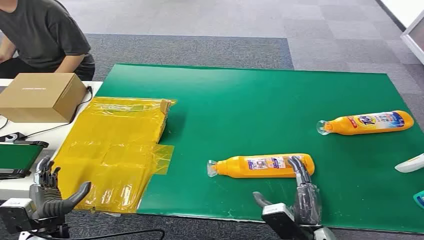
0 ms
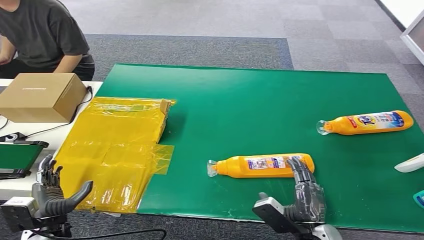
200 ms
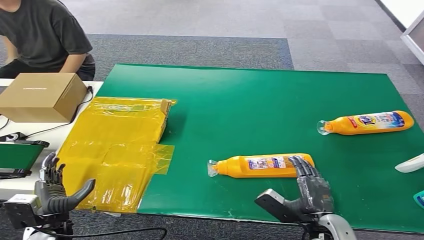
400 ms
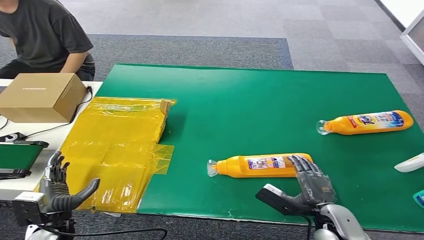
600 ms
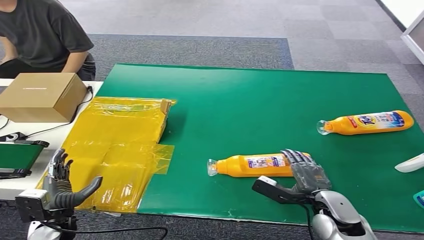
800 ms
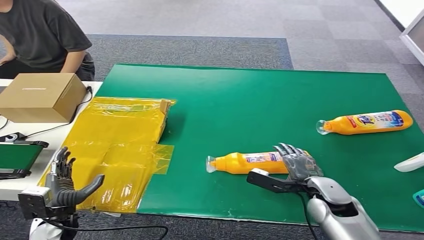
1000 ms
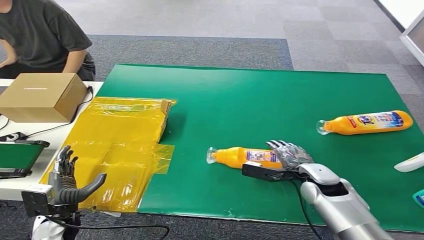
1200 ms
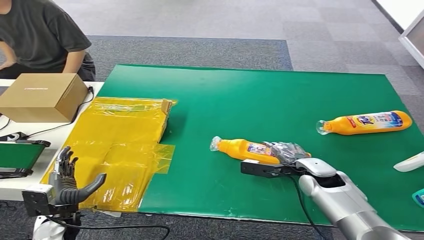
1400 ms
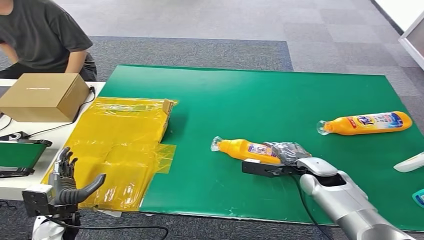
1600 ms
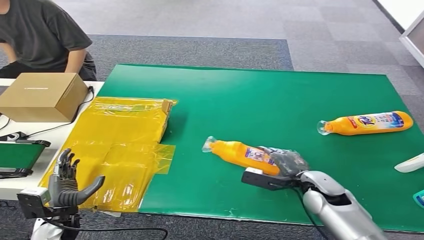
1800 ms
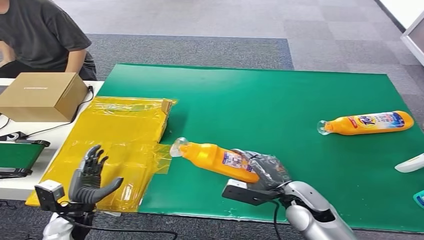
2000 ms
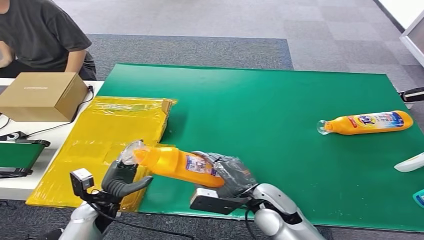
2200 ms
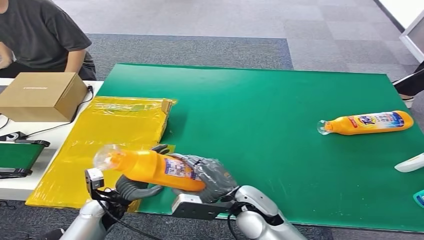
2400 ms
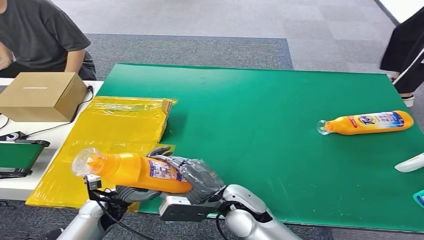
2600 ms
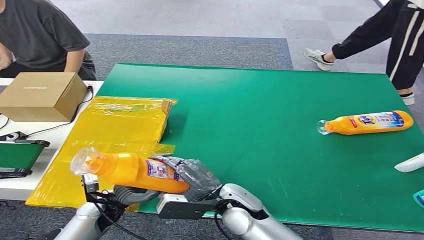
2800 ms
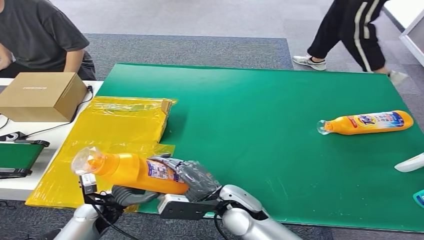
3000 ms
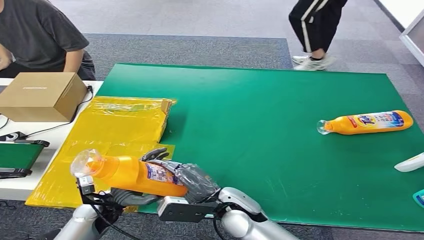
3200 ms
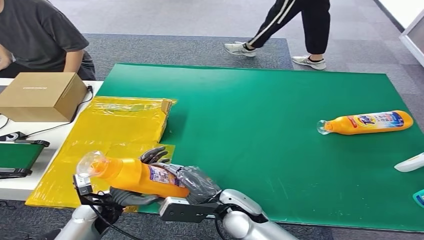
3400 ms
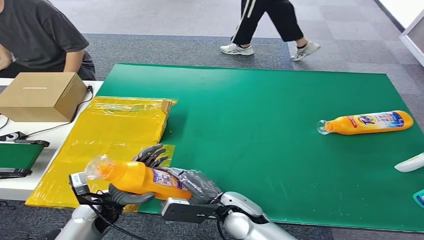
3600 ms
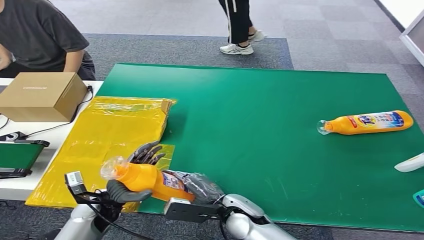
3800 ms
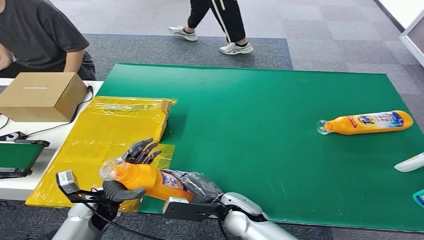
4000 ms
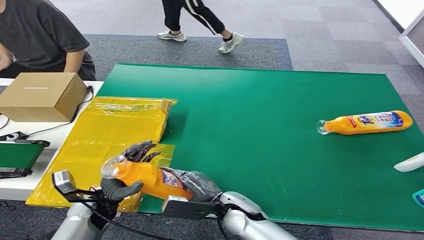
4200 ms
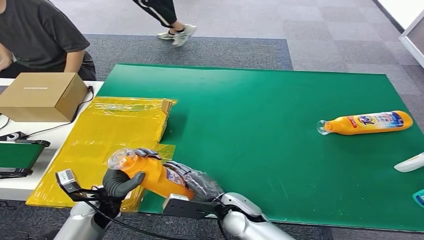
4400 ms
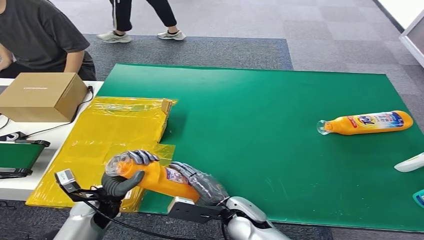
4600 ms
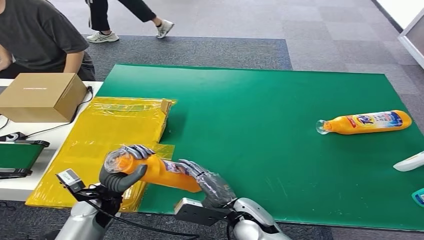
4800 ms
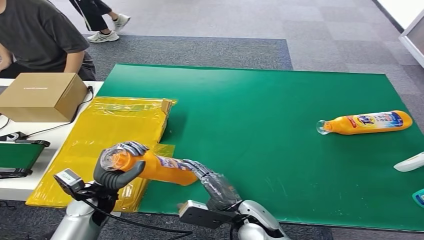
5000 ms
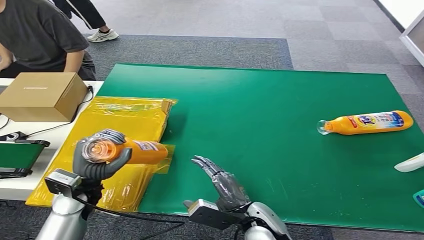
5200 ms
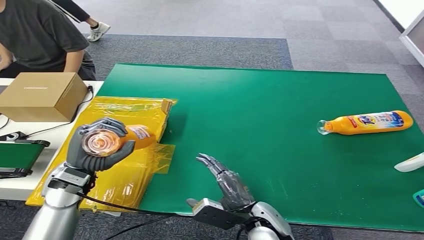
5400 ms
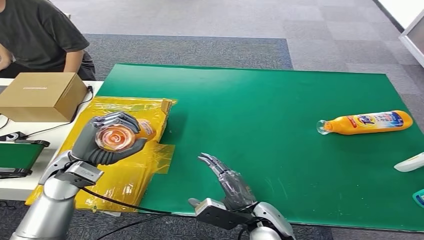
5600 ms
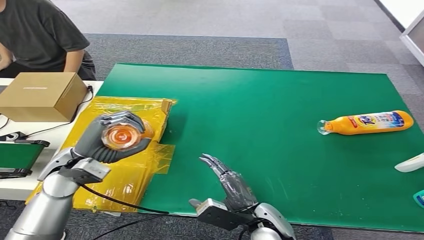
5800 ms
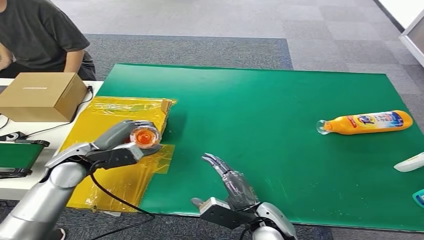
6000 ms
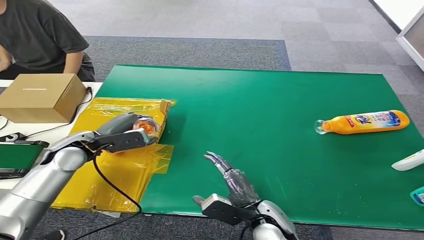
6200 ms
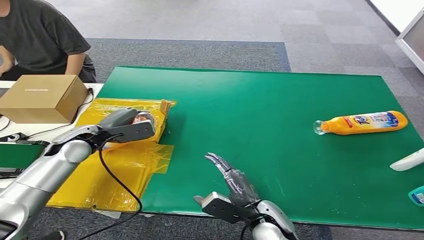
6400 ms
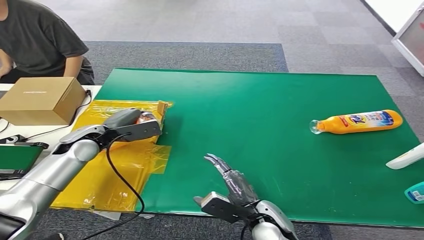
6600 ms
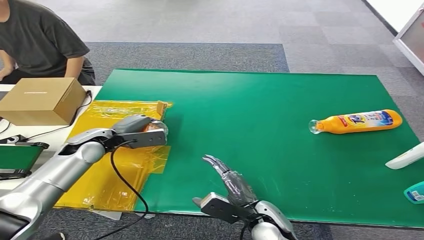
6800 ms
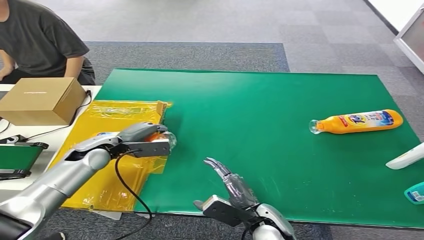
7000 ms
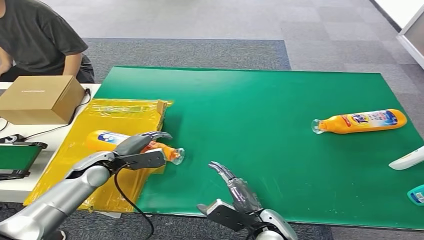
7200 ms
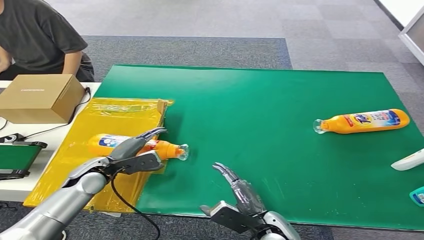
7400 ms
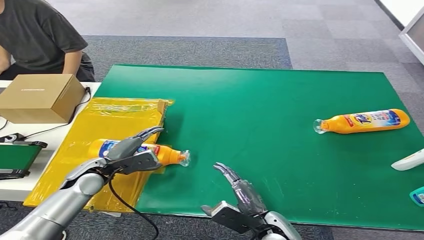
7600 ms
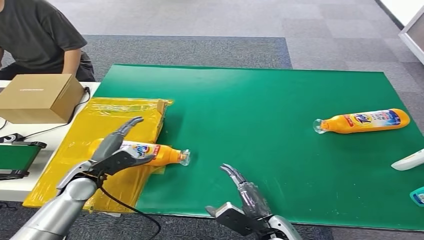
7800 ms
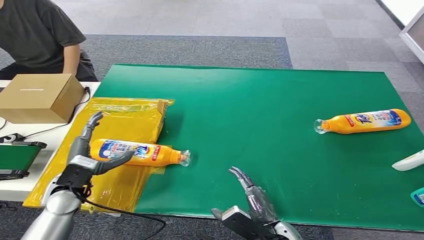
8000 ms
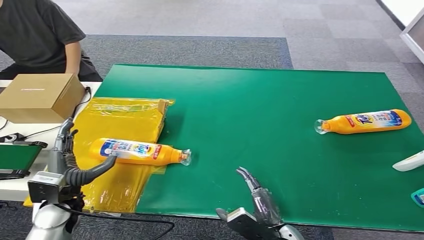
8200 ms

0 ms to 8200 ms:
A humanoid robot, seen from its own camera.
Step, 0 ms to 1800 ms: Pick up the bottle from the table.
Step, 2000 ms to 8200 ms: Turn the bottle to the front side.
3200 ms to 5000 ms: The right hand shifts by some 5 cm. The left hand shifts roughly 5 cm upward.

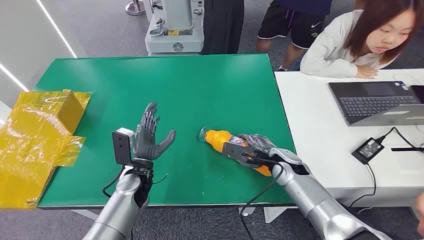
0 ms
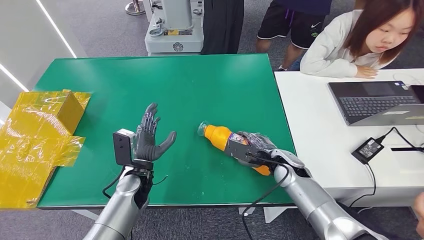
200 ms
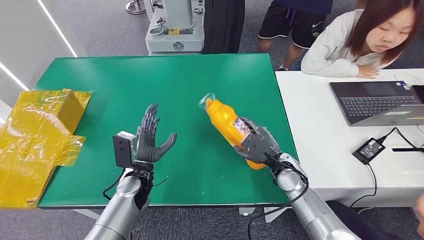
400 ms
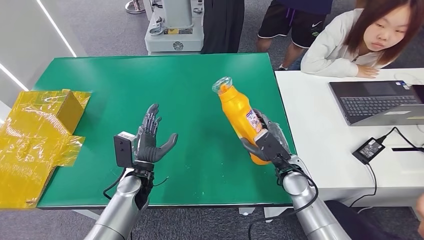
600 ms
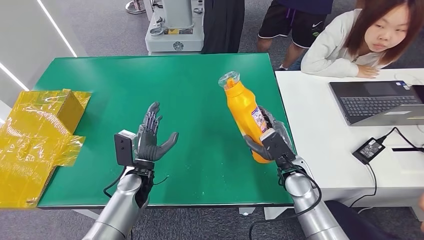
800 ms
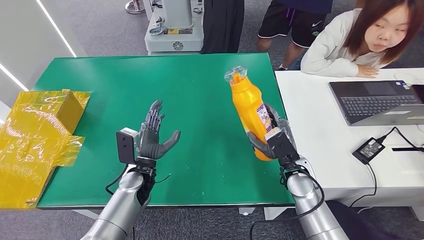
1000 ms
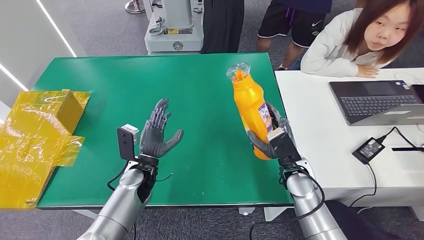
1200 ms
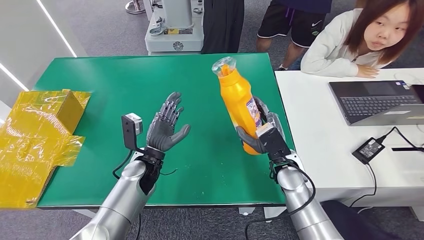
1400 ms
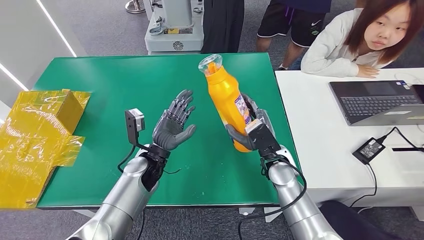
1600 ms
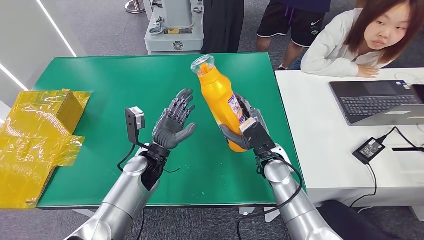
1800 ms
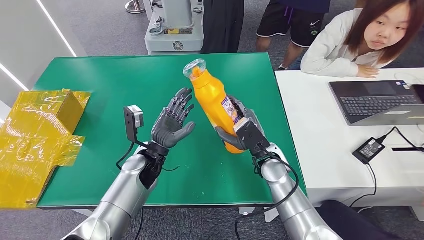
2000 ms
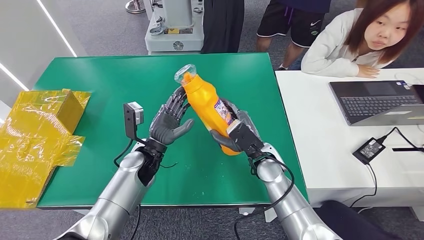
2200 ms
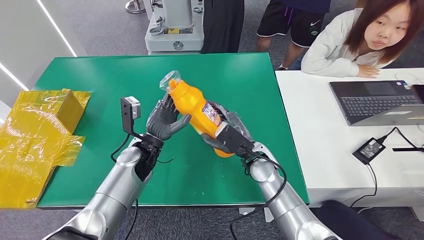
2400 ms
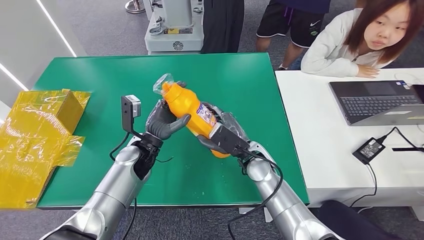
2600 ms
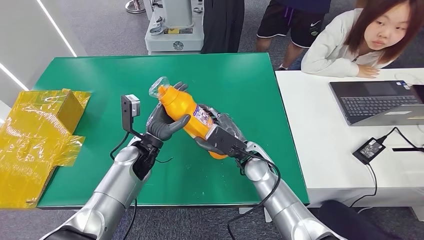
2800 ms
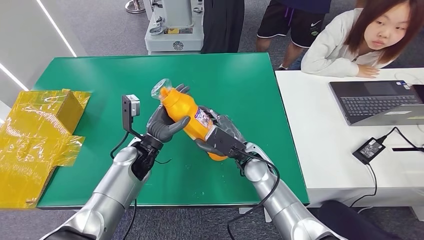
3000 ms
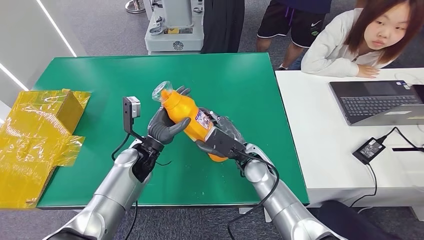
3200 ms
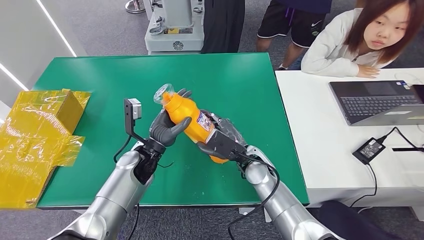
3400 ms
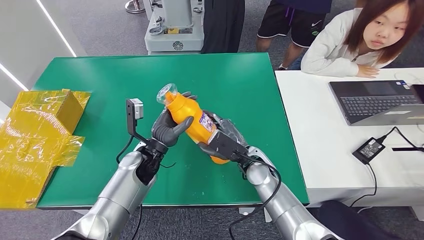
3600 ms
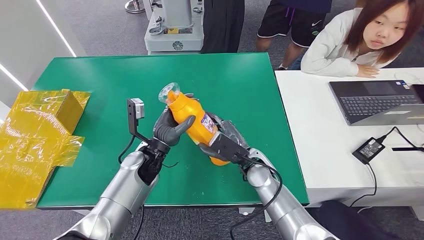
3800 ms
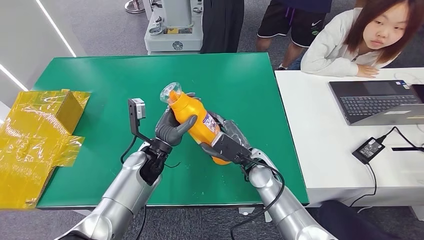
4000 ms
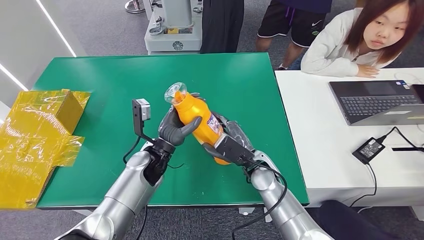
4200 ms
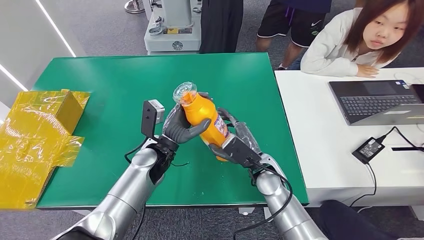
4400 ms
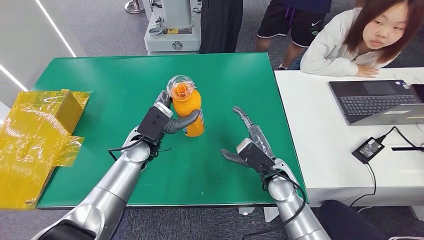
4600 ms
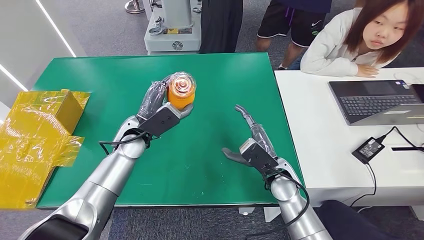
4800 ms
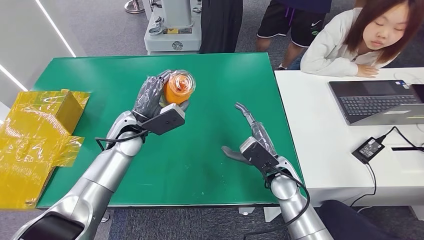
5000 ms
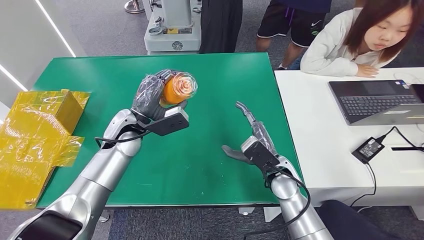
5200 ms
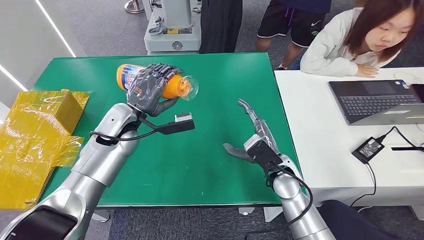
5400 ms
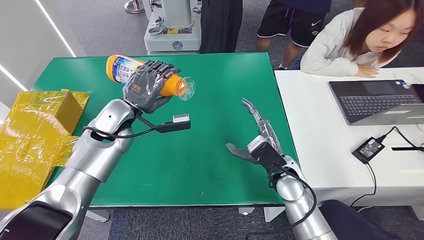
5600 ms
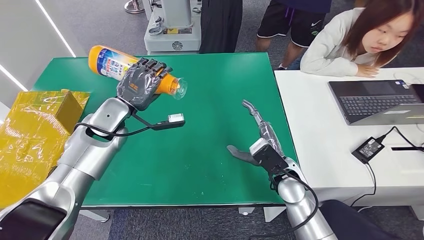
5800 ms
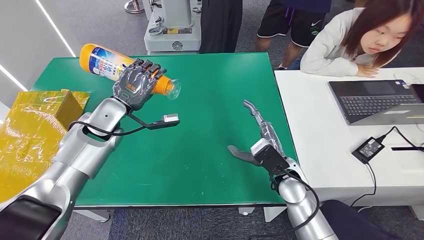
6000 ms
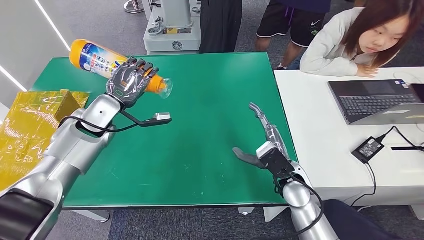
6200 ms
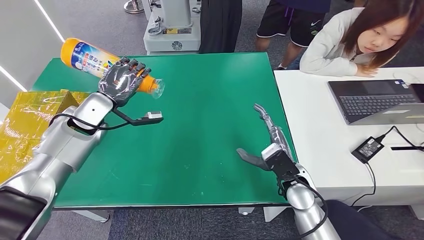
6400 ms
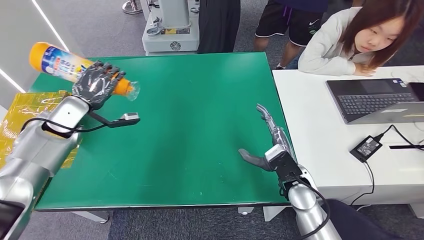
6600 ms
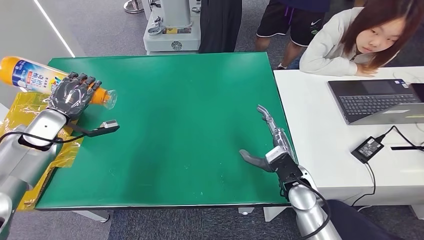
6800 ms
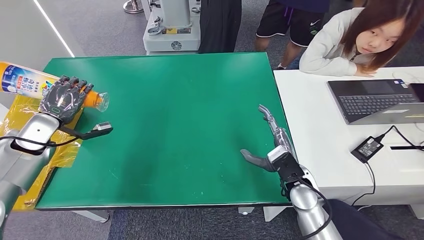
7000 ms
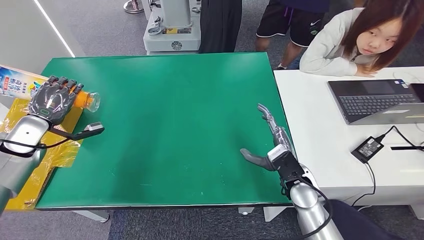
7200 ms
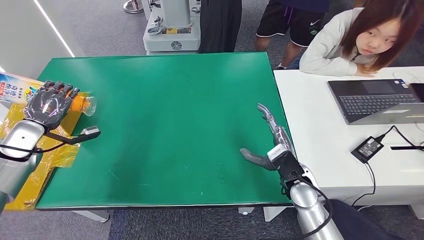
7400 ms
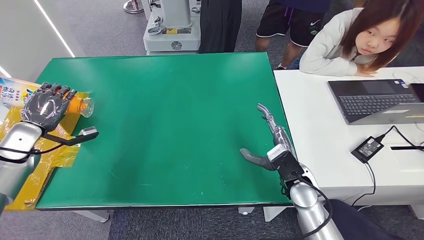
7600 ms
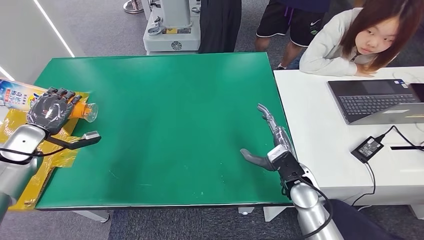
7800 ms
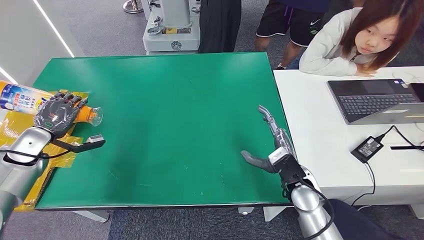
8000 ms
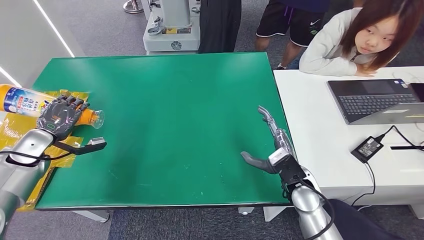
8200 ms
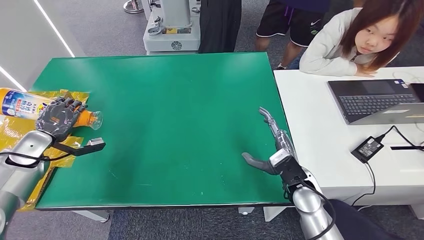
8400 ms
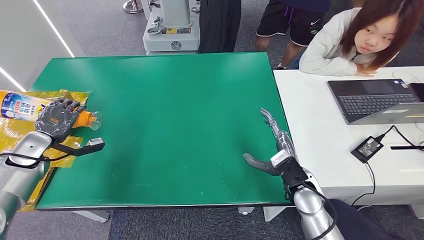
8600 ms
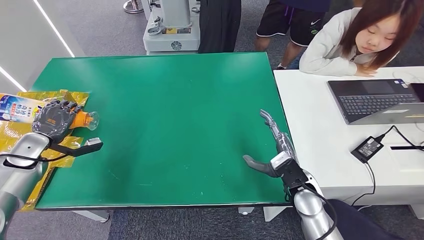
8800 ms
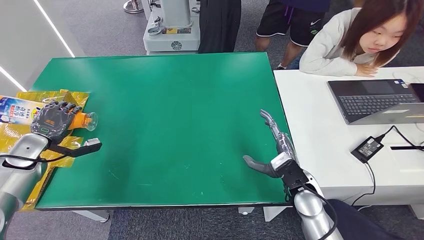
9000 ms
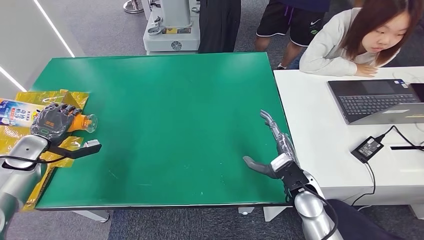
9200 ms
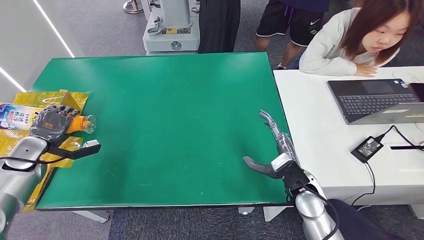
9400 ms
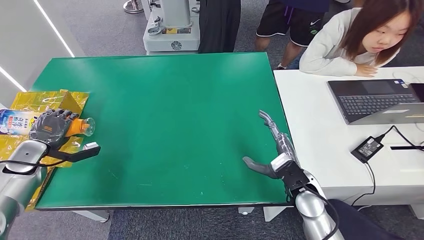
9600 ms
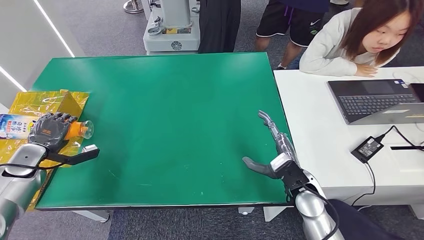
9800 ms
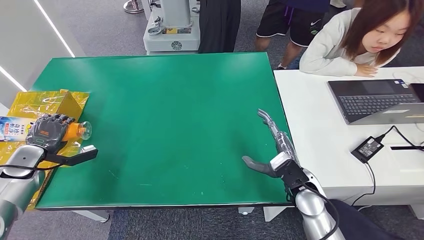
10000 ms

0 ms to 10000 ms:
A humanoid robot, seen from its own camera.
Step, 0 ms to 2800 ms: Pick up the bottle from the table.
1400 ms to 2800 ms: The right hand heads to the left, covering approximately 10 cm.
2800 ms to 4200 ms: The hands make only small movements.
7200 ms to 8600 ms: The left hand changes place by some 5 cm.
8600 ms to 10000 ms: The hands move only a little.
